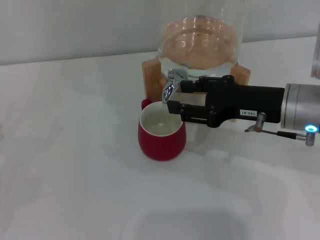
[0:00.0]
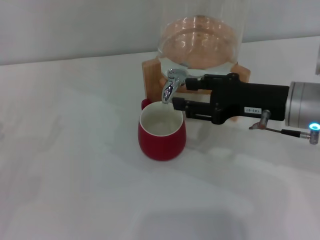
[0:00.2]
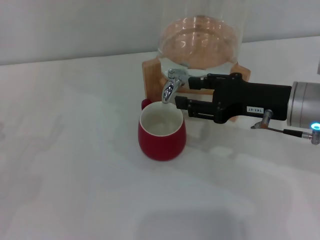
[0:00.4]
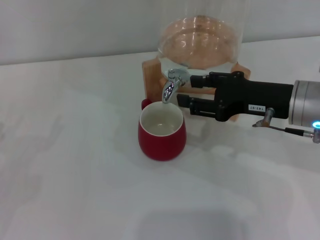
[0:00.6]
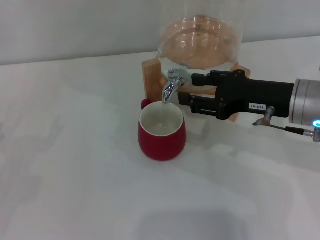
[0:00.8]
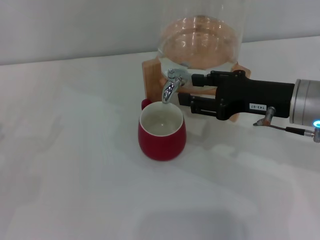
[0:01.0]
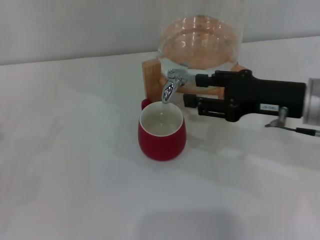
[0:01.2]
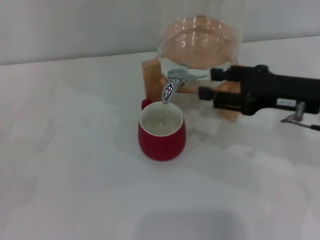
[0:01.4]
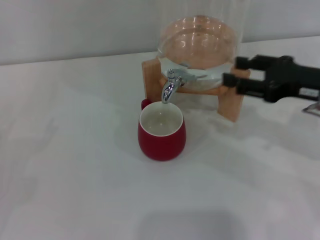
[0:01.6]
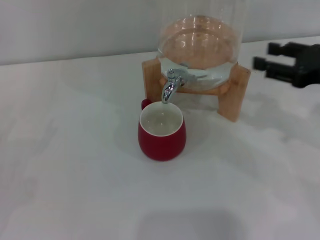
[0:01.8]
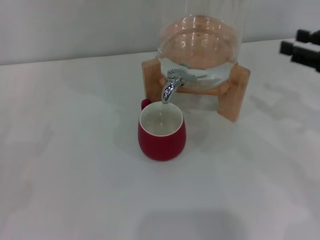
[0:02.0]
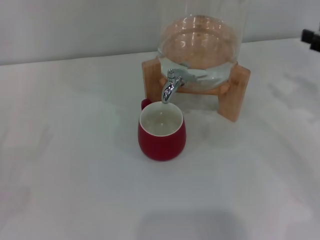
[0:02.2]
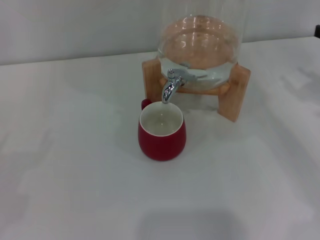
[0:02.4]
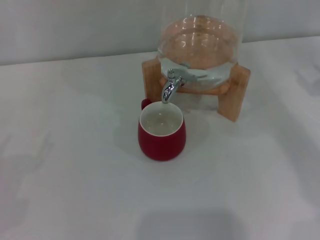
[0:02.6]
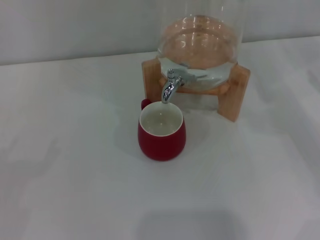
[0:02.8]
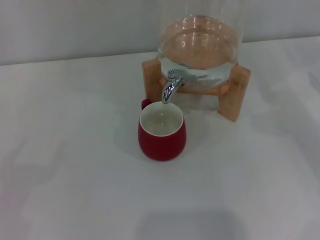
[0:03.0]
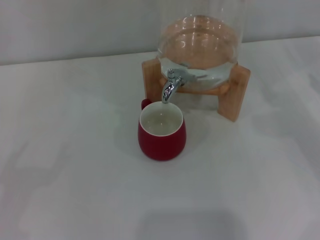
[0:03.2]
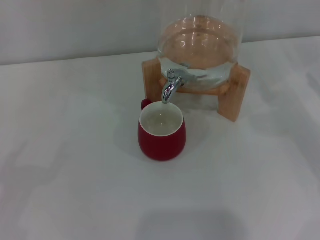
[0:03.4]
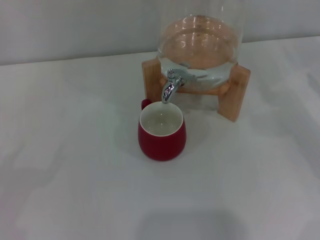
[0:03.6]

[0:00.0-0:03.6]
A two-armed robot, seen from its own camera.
Task of the whole recording: the left gripper pick up the red cup and place it horizontally under the faucet, the right gripper turn on the faucet to fill the cup, and then turn off the faucet.
Step, 0.0 to 1.2 s: Close the dispenser valve with the right gripper.
0.0 to 1.8 s: The right gripper travels to the right by approximately 10 cm.
1.8 to 3.6 s: The right gripper goes approximately 10 cm to the right.

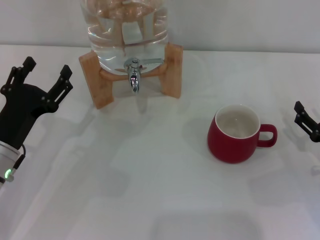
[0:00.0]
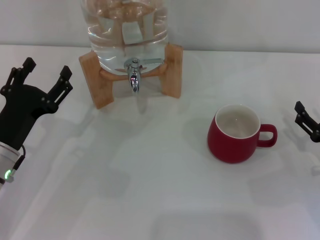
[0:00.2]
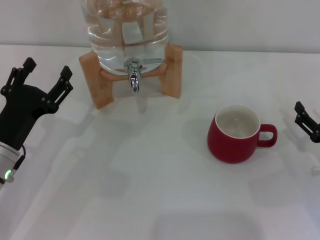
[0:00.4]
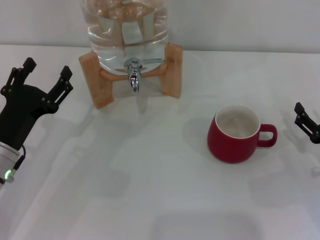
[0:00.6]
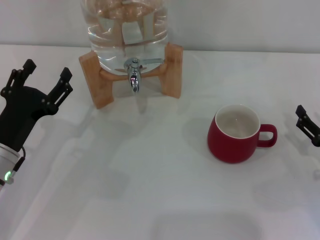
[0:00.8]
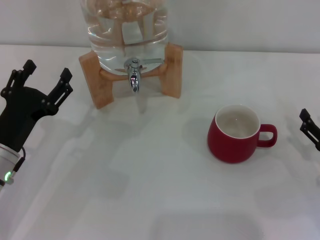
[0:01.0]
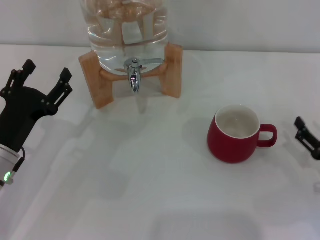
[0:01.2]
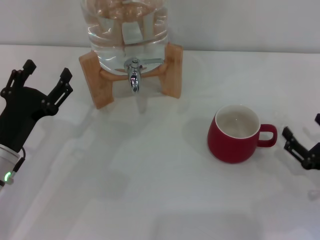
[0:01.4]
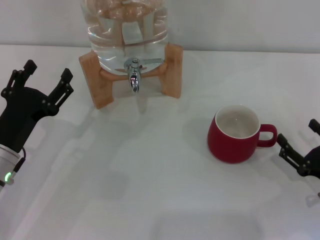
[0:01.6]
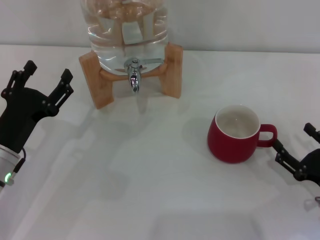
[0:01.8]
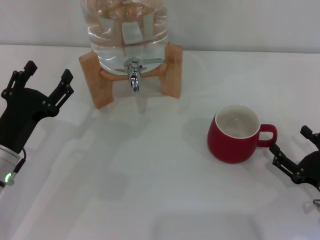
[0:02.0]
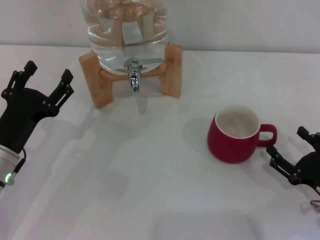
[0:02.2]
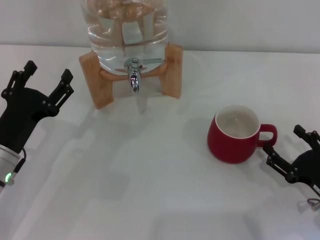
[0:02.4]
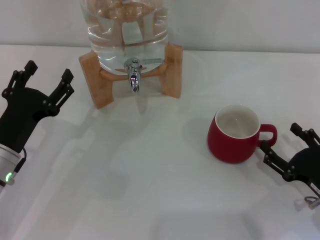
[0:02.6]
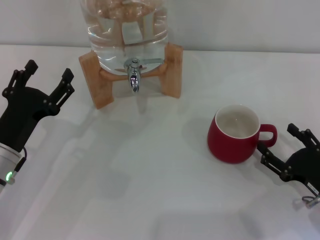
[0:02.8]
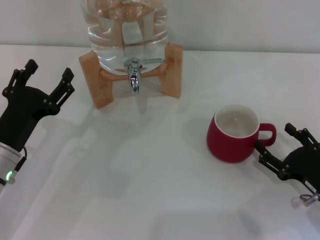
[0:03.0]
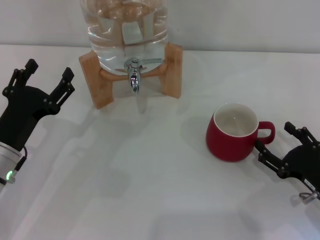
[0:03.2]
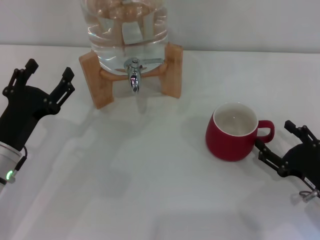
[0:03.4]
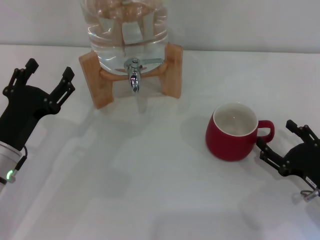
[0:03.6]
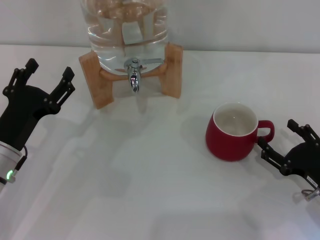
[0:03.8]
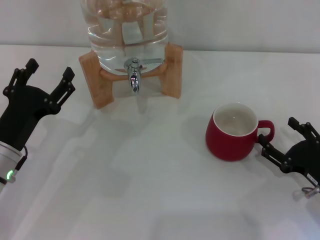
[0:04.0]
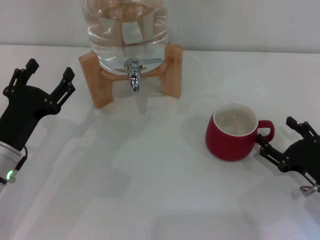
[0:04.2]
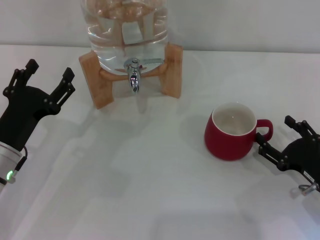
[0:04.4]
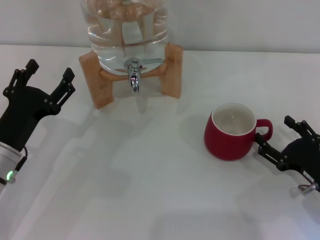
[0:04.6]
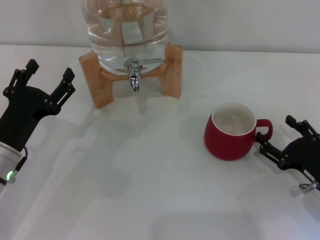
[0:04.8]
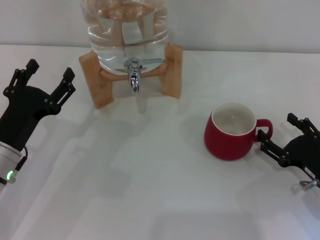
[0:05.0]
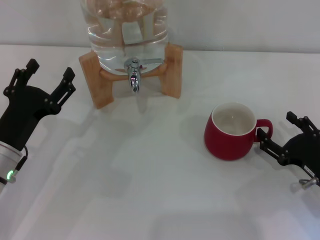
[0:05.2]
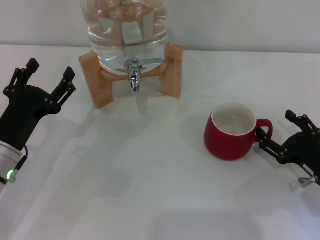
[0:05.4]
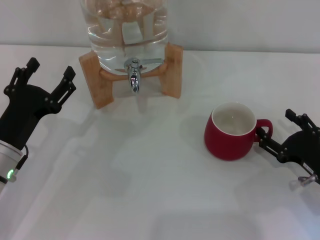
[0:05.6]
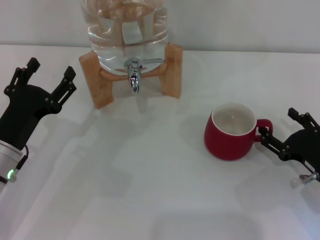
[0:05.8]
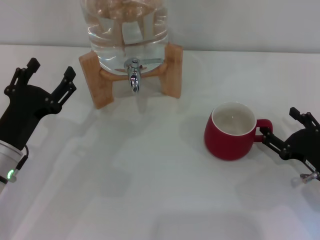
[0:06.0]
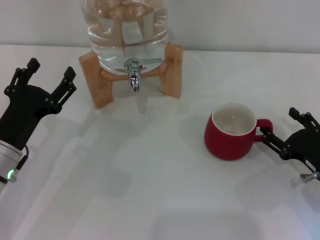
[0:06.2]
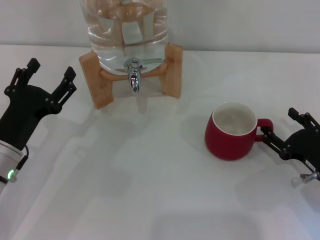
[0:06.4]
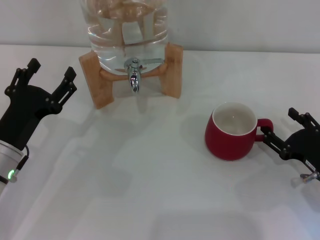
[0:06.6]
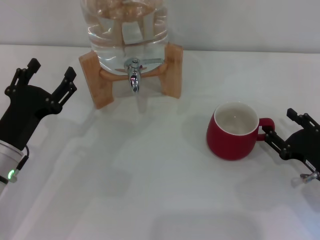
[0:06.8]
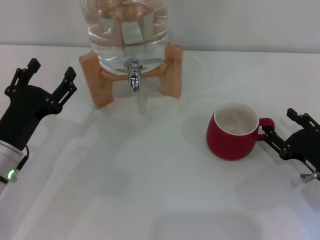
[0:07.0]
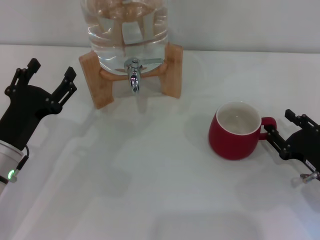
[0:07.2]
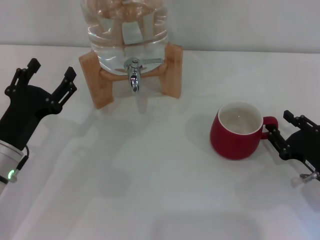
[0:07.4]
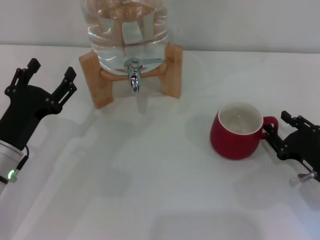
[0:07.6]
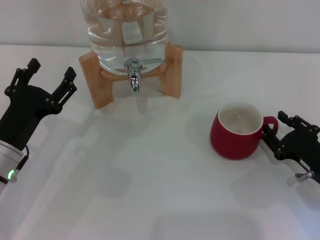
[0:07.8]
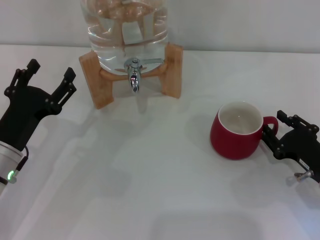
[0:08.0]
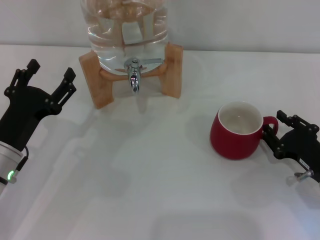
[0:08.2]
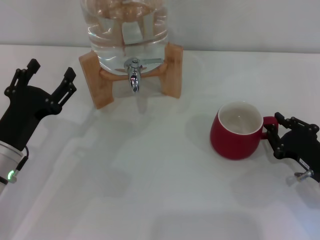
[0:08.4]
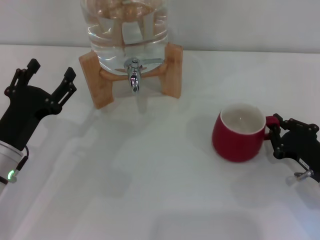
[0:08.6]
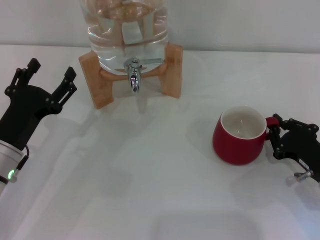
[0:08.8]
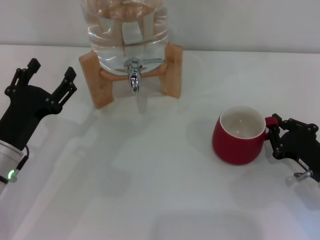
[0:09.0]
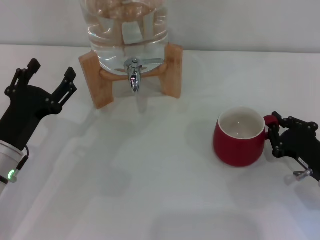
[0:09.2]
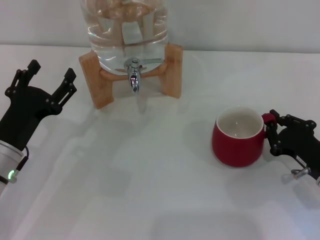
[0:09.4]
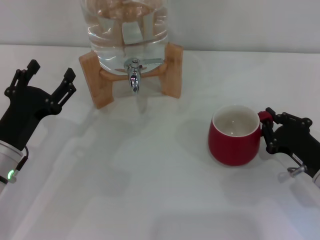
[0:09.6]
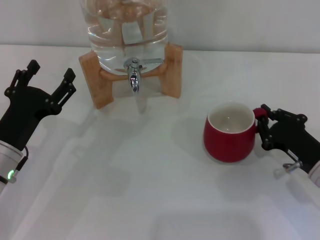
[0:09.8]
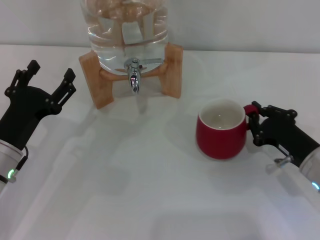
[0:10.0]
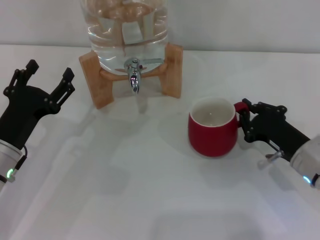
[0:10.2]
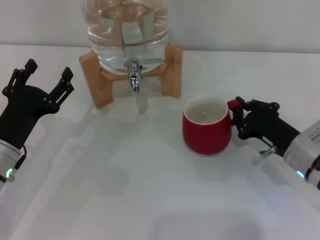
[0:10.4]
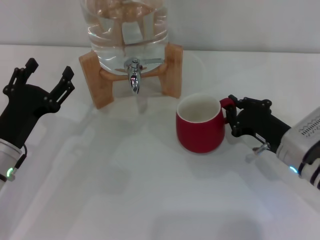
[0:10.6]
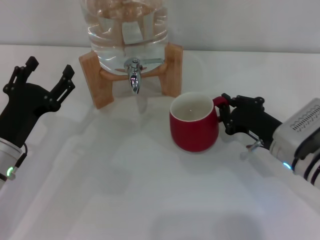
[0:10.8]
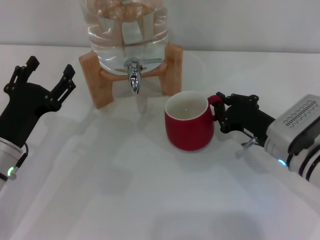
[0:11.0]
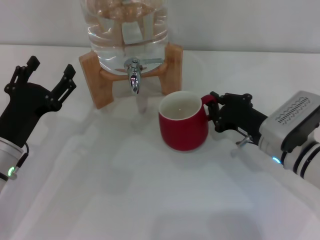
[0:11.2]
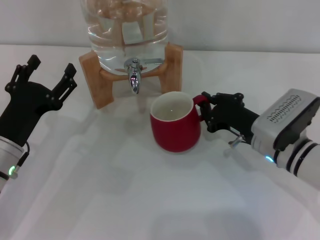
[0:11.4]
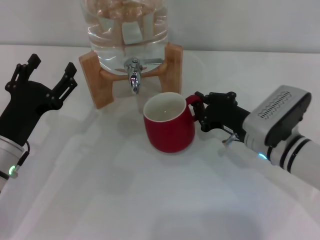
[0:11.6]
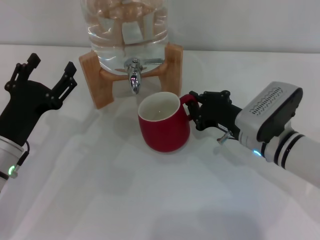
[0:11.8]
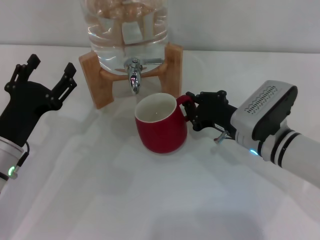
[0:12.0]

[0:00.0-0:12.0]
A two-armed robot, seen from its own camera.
Task of the whole recording: the right gripper pick up the red cup and place it horizontally under the faucet, the left gripper turn on the faucet to fill the cup, and then turn off the faucet.
0.0 to 6.0 s: The grippers make only small movements.
6.0 to 7.6 s: The right gripper closes.
7.6 to 9.0 s: The right gripper closes its fingers.
9.0 to 10.4 s: The right gripper changes place by about 5 cm.
10.4 to 12.0 s: The right gripper shifts approximately 5 cm to the left.

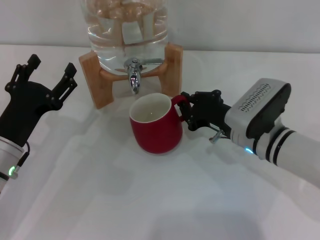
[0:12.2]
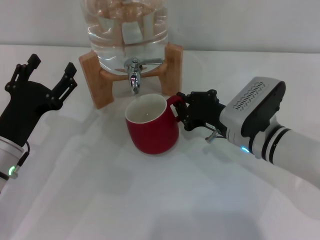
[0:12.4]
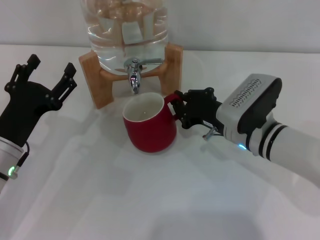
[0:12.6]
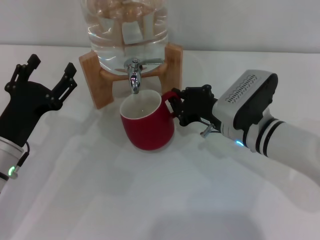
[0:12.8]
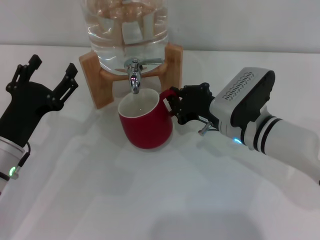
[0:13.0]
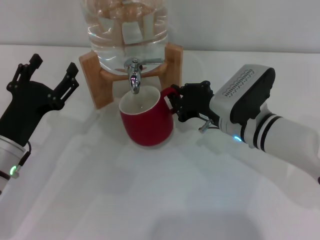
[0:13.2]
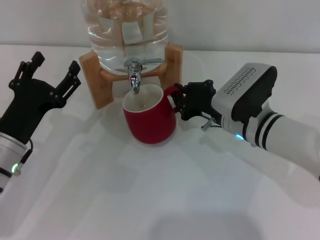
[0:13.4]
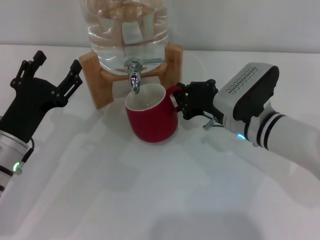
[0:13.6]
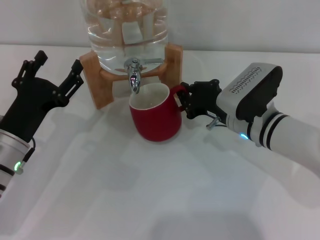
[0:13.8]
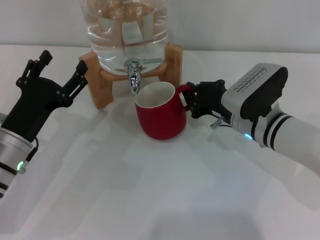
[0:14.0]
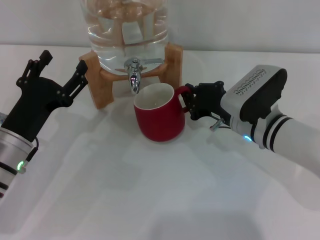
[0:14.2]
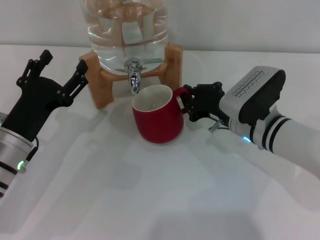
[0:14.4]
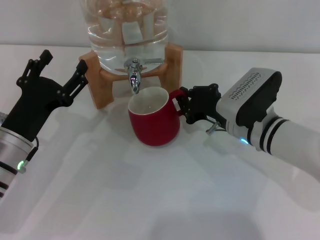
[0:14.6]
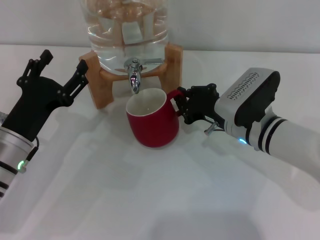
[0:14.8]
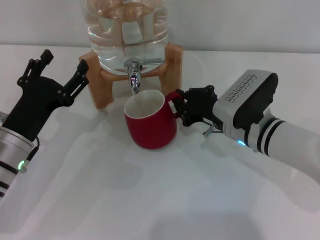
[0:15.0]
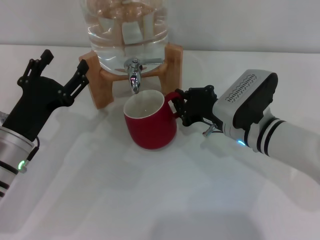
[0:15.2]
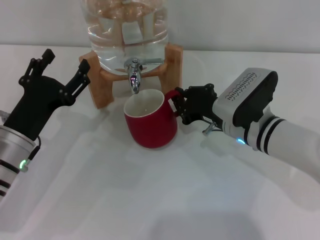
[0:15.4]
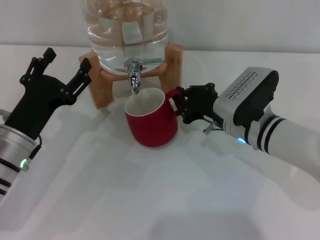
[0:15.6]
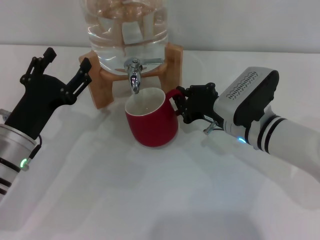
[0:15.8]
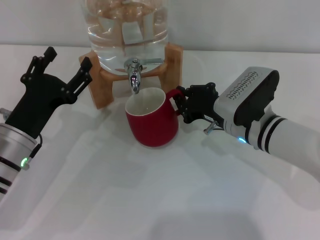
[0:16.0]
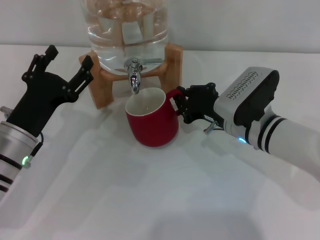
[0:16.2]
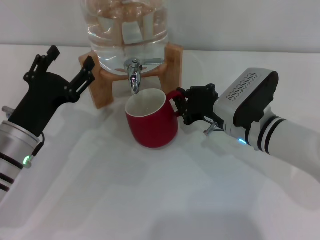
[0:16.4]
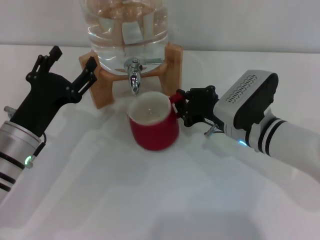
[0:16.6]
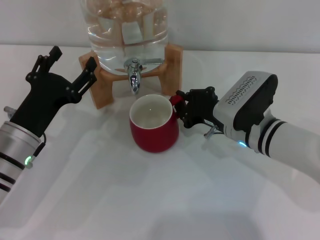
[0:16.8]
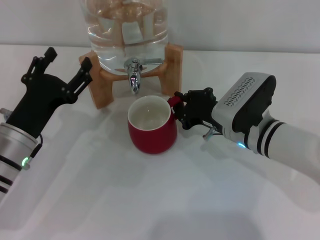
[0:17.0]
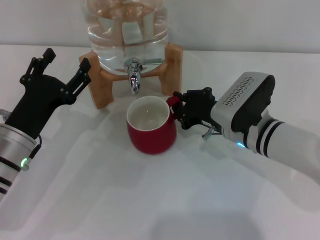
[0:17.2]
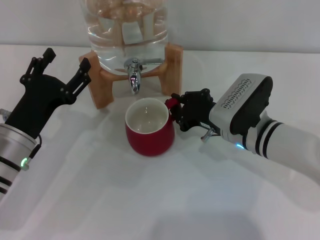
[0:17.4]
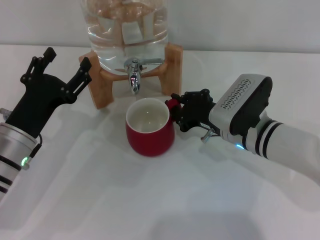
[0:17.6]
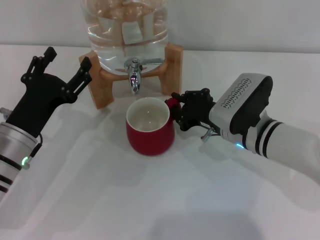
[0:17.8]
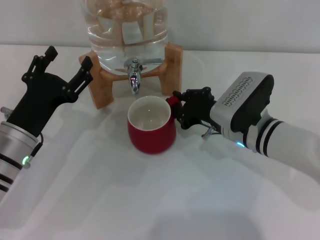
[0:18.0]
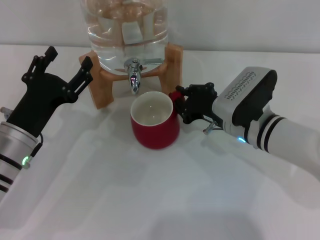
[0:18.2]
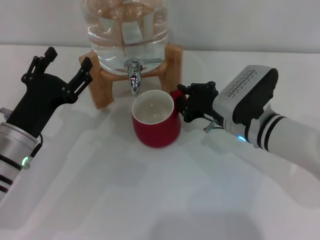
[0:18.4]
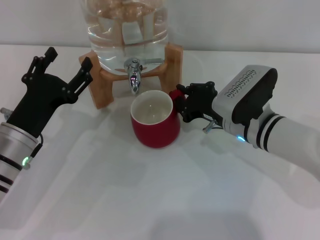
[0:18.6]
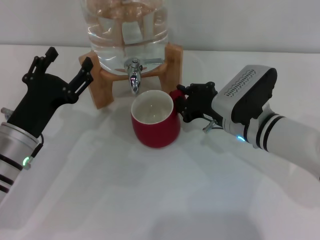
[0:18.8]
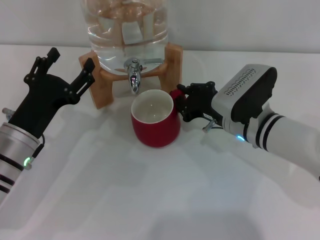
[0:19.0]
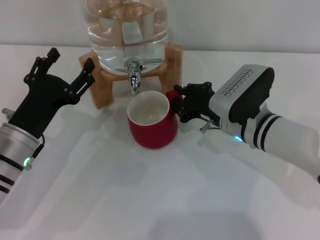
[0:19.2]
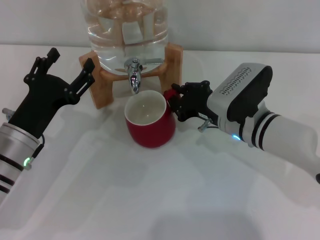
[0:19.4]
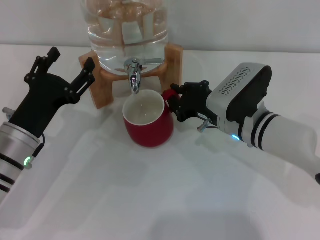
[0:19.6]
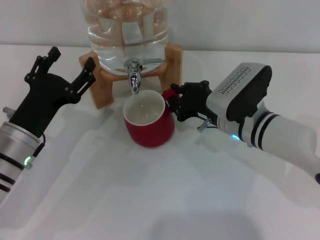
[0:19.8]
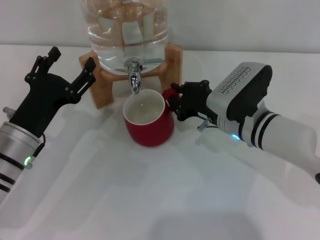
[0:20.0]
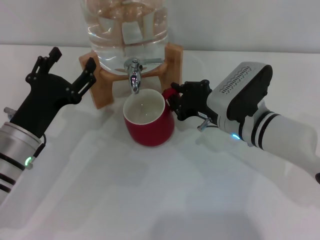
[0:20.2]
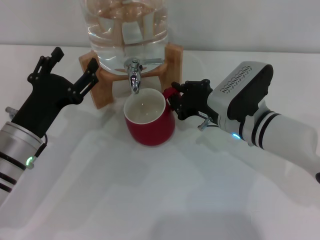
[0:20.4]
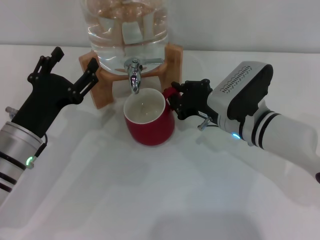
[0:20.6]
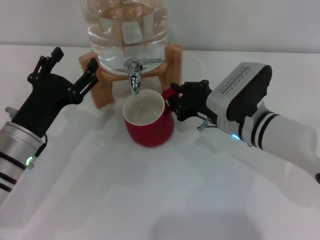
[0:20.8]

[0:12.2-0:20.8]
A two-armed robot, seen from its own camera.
Task of the whole recording: the right gripper pick up the red cup and place it horizontally under the faucet, the left gripper turn on the faucet to fill the cup, and then turn off the faucet.
12.2 to 13.6 s: The grippers move only a little.
13.6 to 15.0 s: Both grippers stay about where they are.
15.0 to 20.8 s: Neither gripper changes place.
